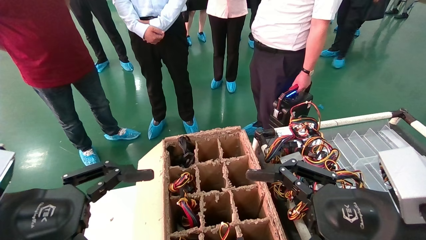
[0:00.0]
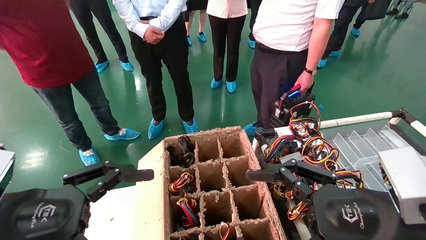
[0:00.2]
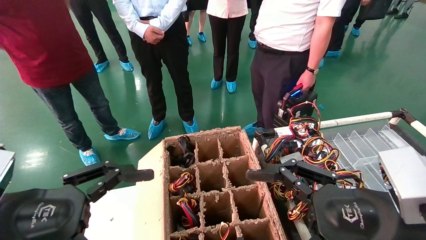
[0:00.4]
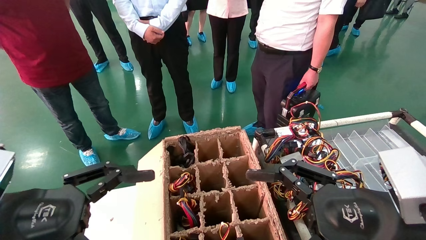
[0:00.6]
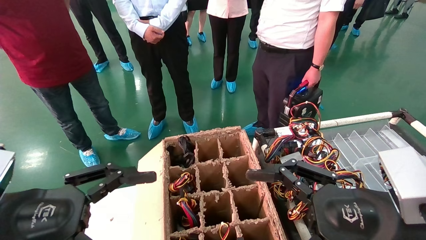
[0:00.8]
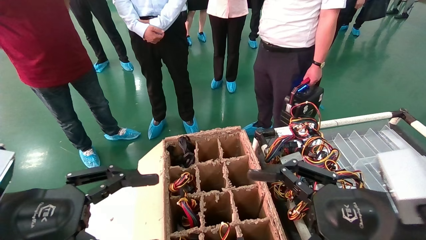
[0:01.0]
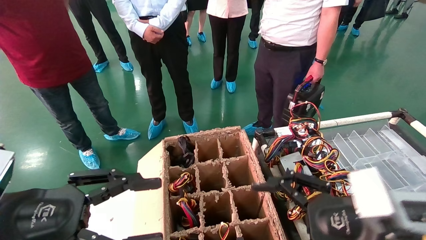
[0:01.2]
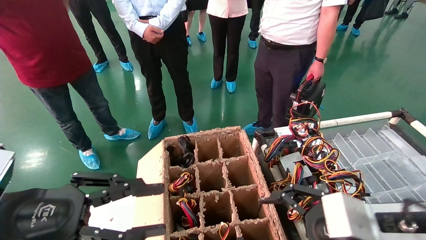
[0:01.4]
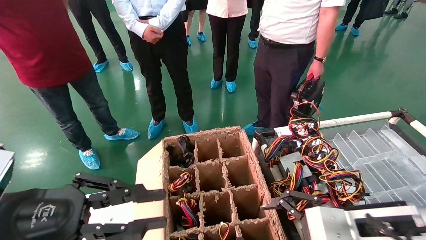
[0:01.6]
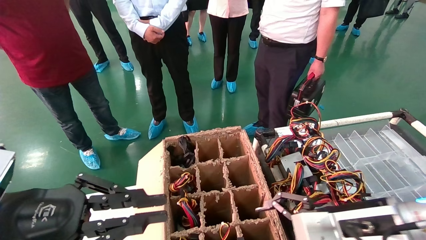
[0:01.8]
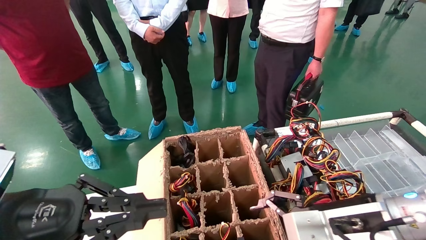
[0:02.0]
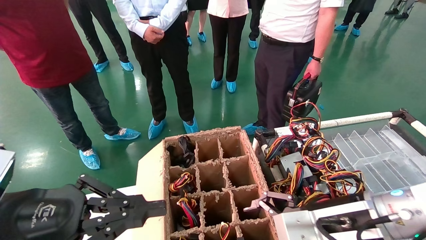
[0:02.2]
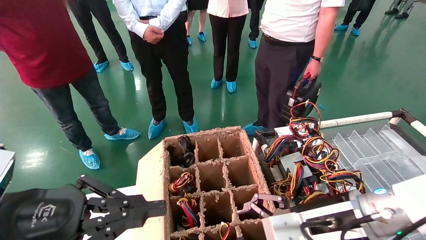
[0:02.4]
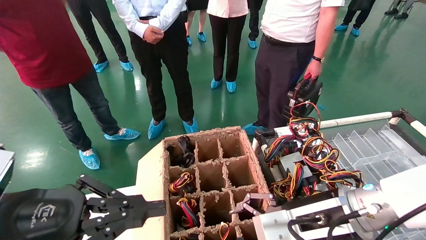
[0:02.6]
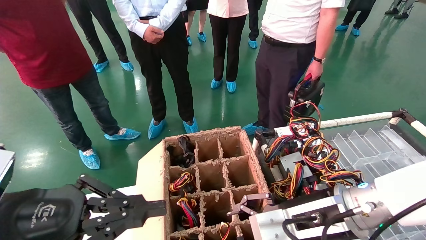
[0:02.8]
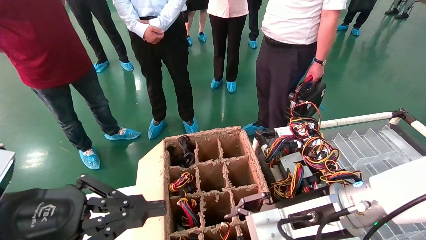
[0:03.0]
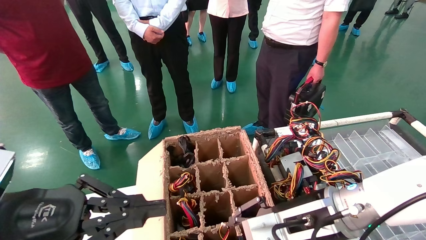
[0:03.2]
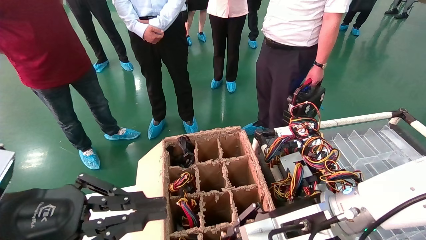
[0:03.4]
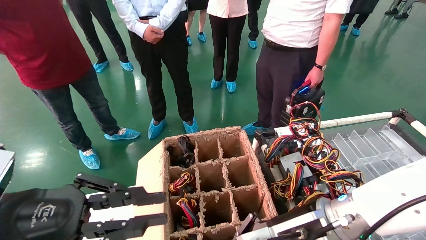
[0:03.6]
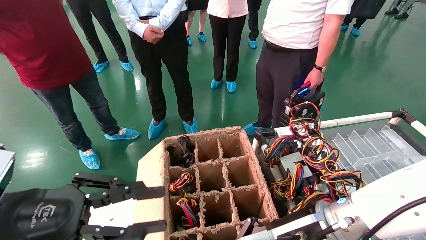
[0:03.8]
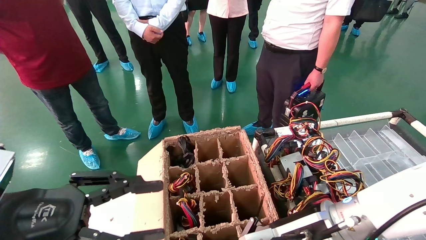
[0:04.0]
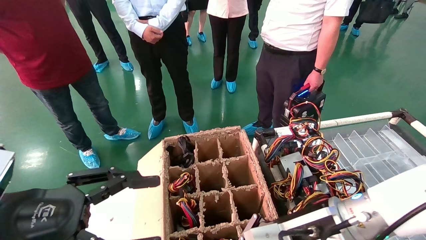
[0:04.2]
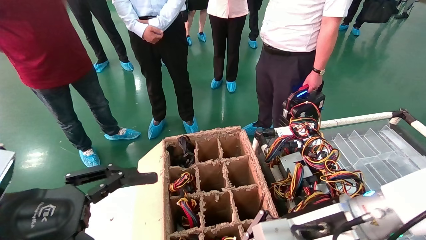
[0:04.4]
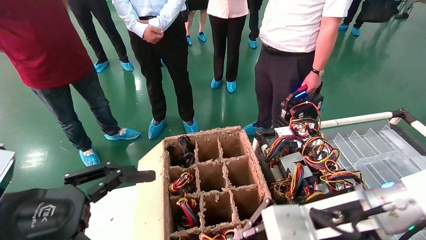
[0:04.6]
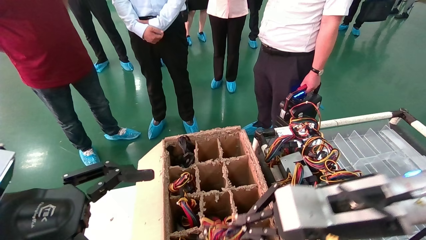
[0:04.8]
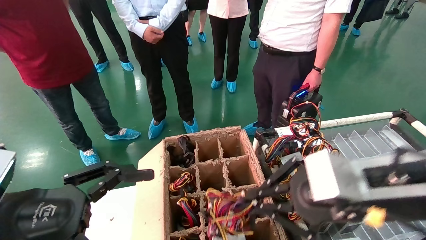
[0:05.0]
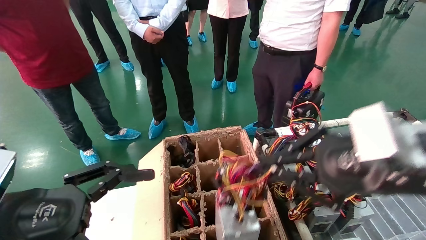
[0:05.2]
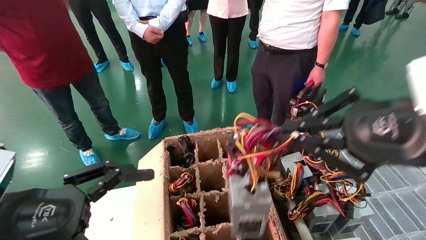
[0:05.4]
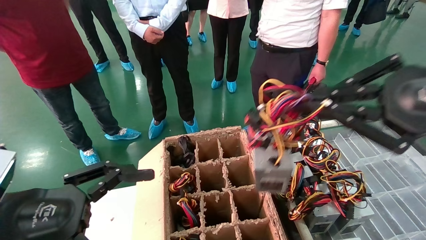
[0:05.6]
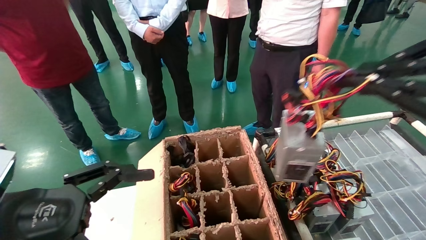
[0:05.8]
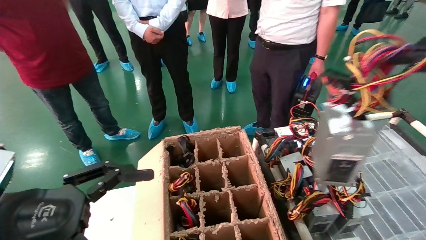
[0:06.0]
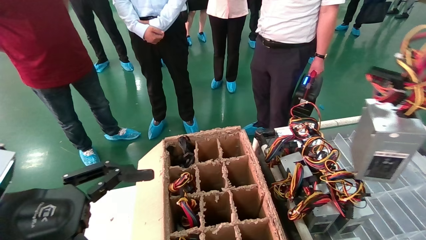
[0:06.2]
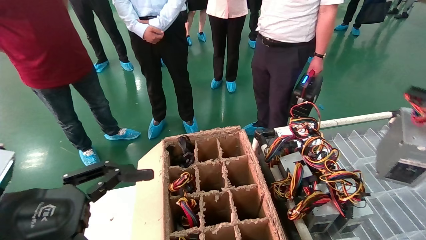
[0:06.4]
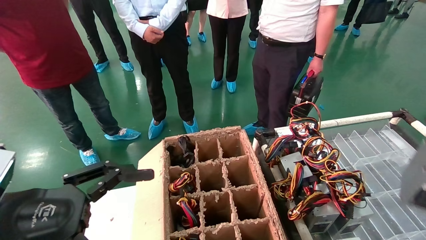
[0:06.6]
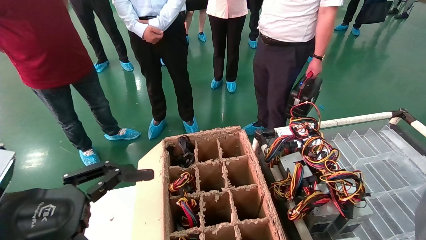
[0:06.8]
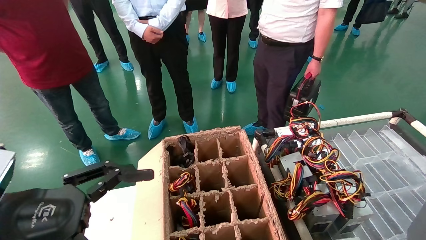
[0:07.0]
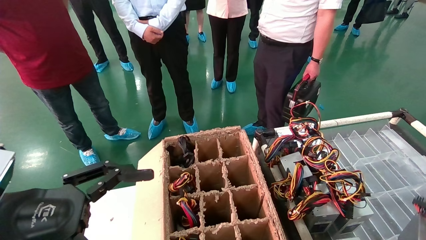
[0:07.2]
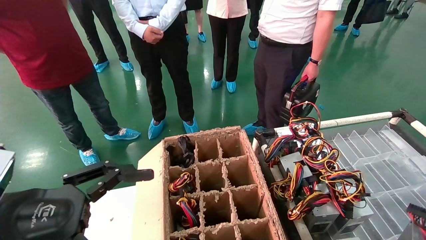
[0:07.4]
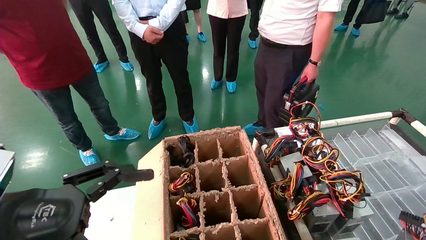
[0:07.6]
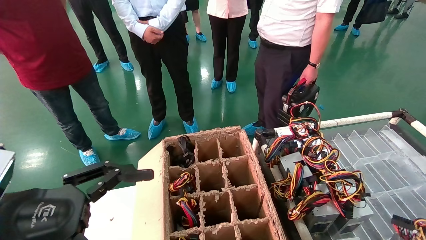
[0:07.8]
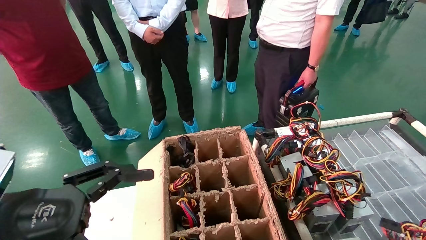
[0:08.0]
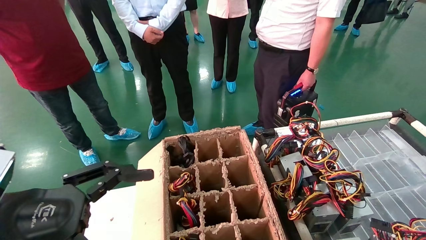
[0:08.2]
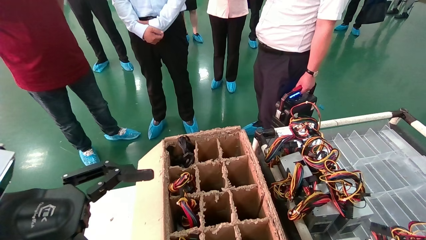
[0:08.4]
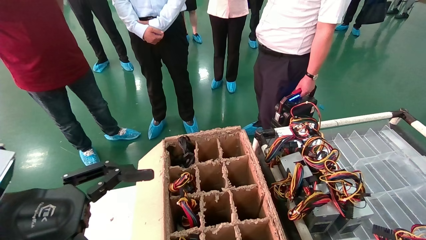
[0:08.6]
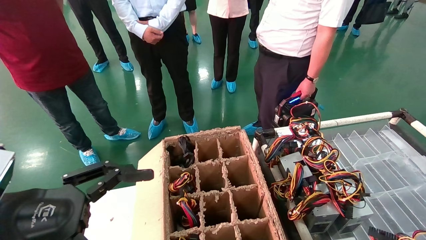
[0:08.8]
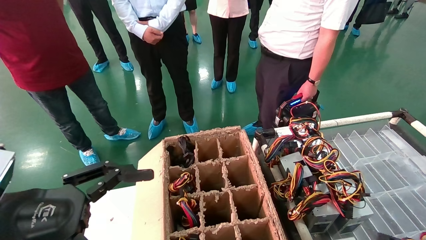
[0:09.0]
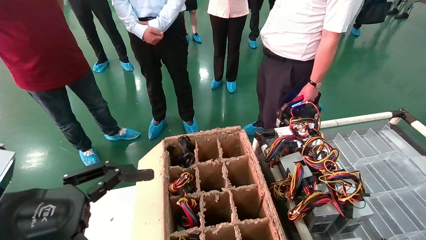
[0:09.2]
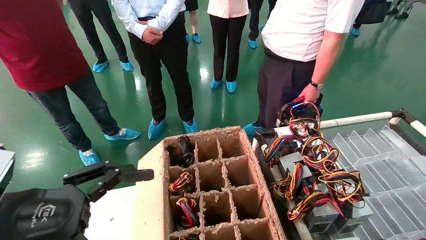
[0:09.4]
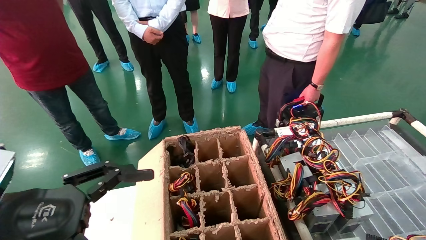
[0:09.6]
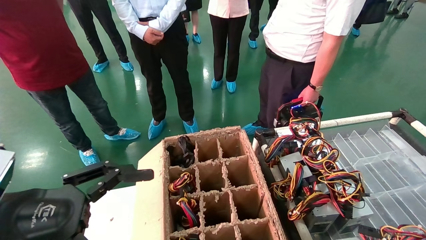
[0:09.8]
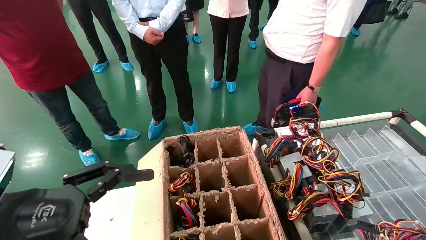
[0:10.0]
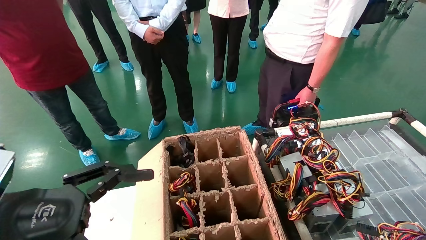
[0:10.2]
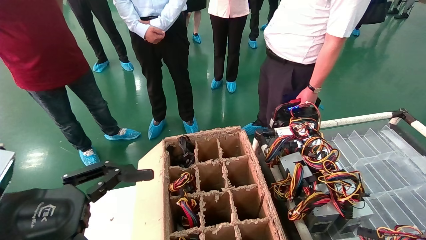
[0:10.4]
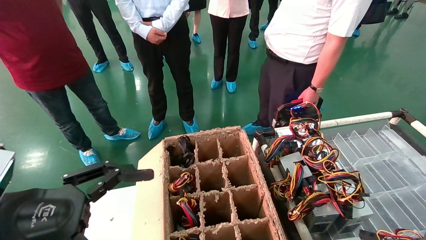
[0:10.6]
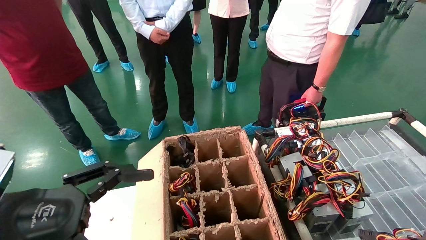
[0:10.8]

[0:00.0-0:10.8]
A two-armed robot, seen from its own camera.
Step, 0:01.0 to 0:03.6: Grab and lift the power supply from the large box.
0:00.0 to 0:01.6: The left gripper closes its fingers. The right gripper heads forward, covering roughly 5 cm.
0:01.6 to 0:03.0: The right gripper moves to the left, approximately 5 cm.
0:03.0 to 0:04.6: The left gripper opens up. The right gripper closes up.
0:04.6 to 0:06.2: The right gripper shifts about 35 cm to the right, upward and backward.
0:06.2 to 0:07.8: The right gripper goes some 15 cm downward.
0:07.8 to 0:09.2: The grippers move only a little.
0:09.2 to 0:10.8: The right gripper changes place by about 5 cm.

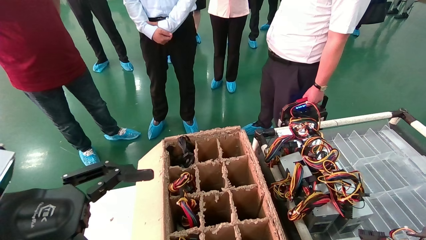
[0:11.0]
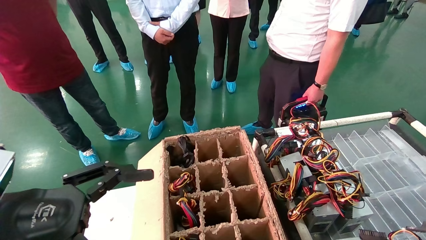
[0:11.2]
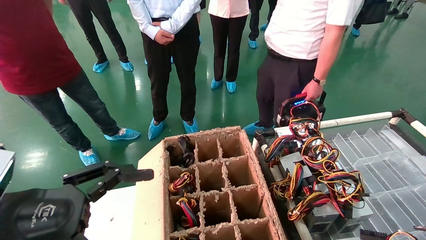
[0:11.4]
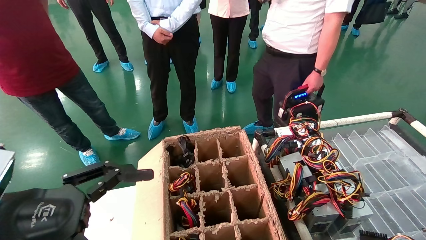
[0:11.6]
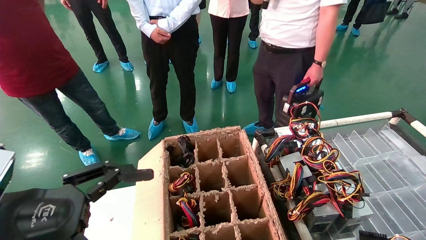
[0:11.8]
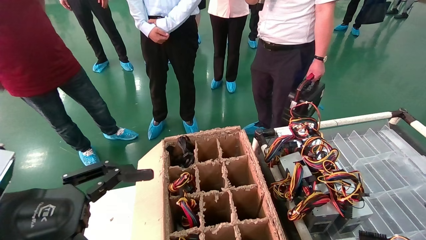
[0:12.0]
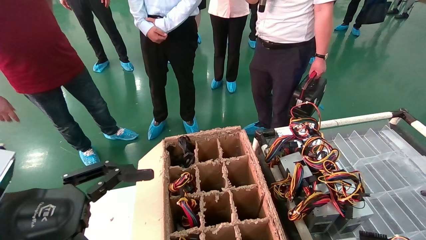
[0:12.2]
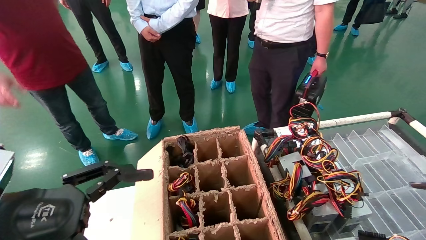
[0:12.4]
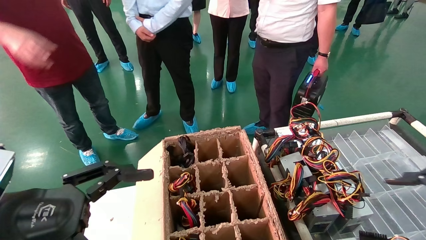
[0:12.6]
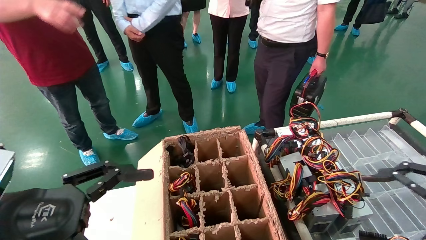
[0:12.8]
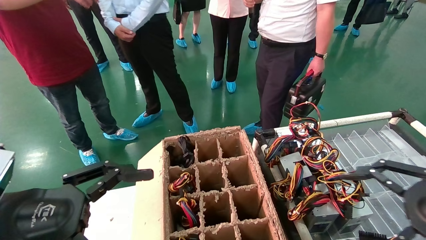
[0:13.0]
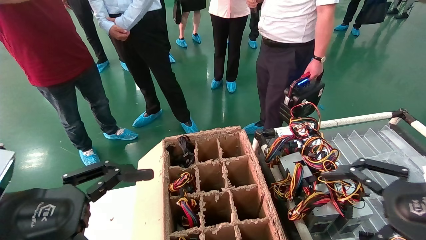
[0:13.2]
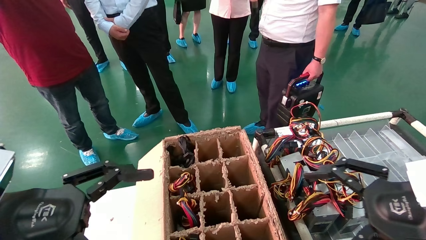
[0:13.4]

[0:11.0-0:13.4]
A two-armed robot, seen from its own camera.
0:11.0 to 0:12.2: The right gripper opens up.
0:12.2 to 0:13.4: The right gripper travels to the left and forward by about 15 cm.
